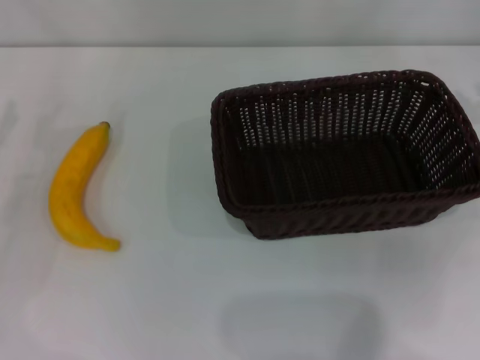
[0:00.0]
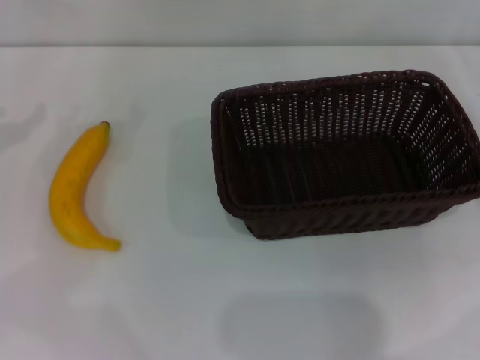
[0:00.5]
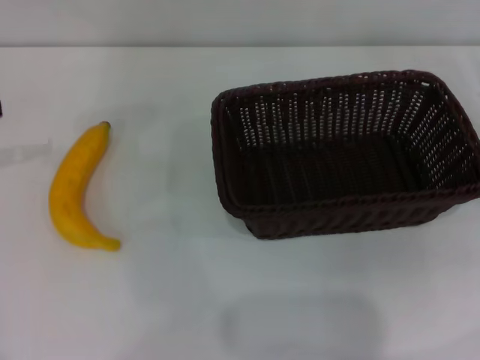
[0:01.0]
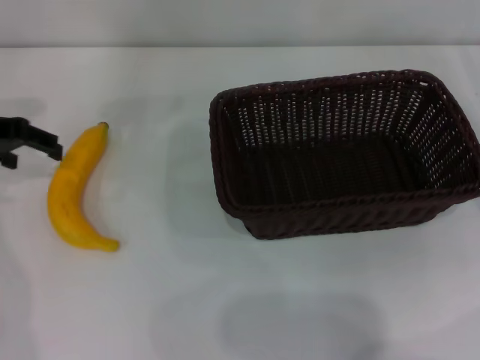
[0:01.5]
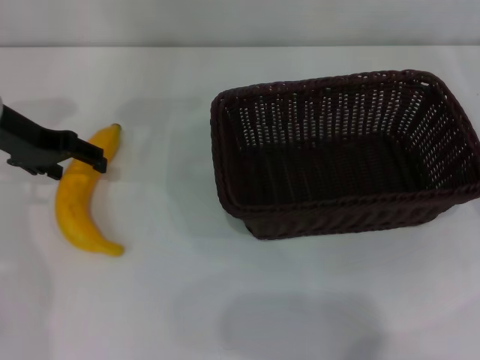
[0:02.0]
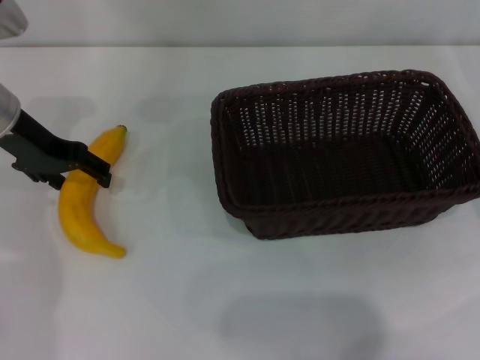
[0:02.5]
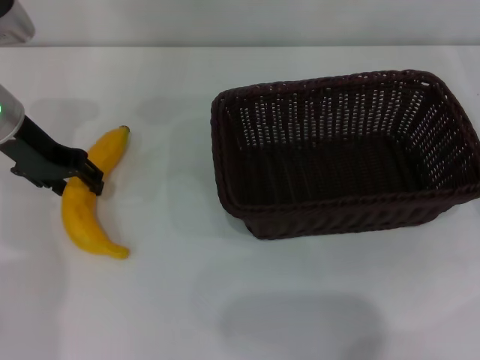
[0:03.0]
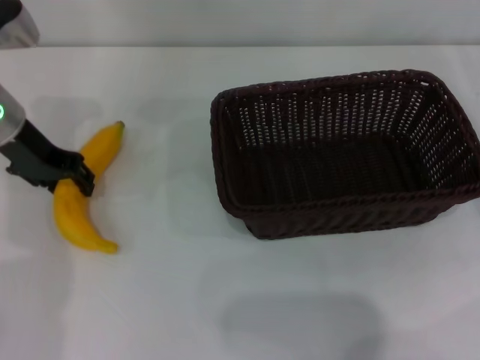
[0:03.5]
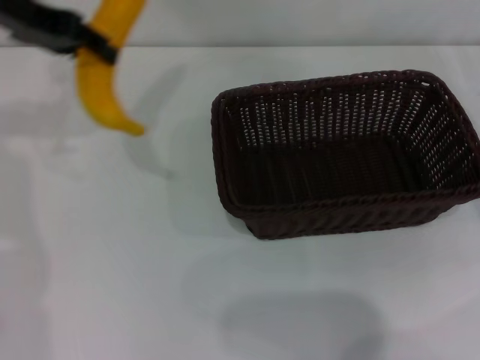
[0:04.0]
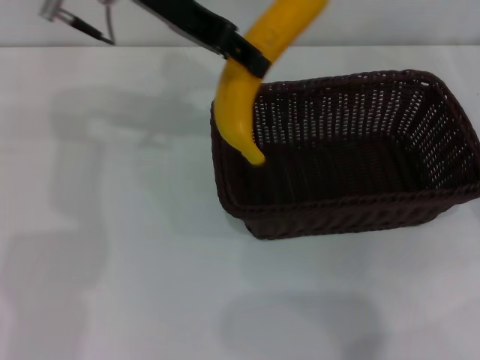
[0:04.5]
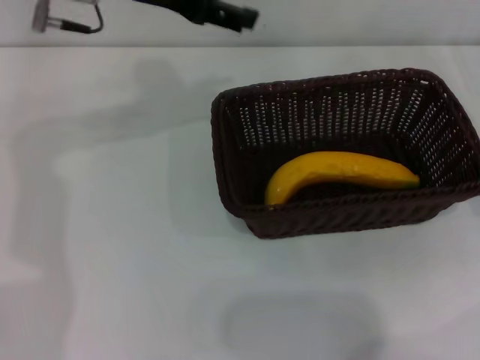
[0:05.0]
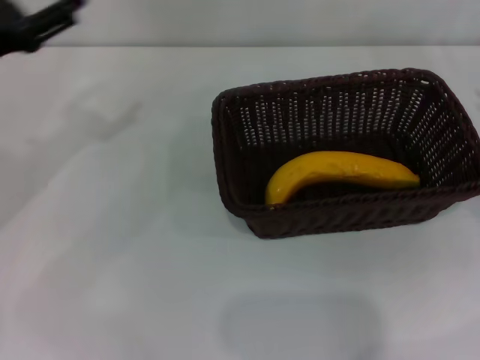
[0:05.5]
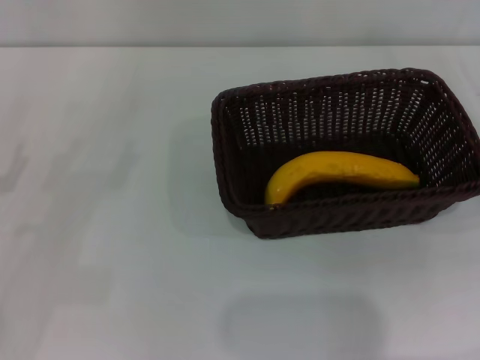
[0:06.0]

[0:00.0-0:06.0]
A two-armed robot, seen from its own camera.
Step, 0:00.0 to 0:03.5: Pick up the banana with the left gripper.
Step, 0:04.0 to 0:04.5: Place the banana into the dark basket with the left gripper.
0:00.0 to 0:02.0: The left gripper shifts some 15 cm to the right and forward.
0:02.0 to 0:04.0: The left gripper is displaced upward by roughly 10 cm, and closes its fingers.
0:04.0 to 0:06.0: The left gripper moves downward, backward and to the left, roughly 30 cm, and opens up; the right gripper opens its fingers.
